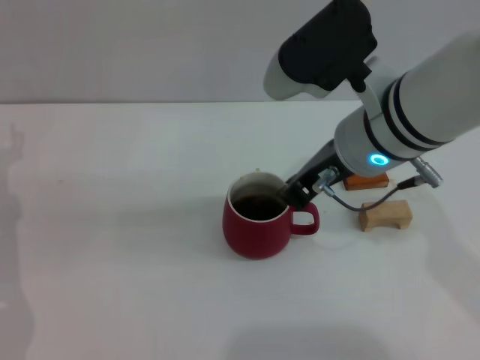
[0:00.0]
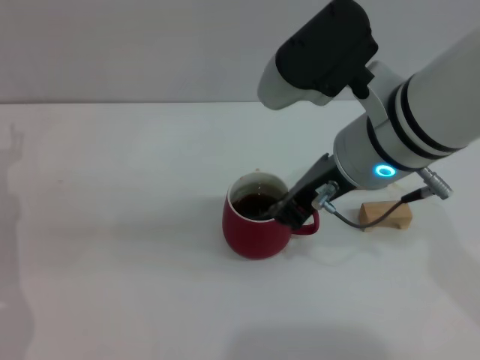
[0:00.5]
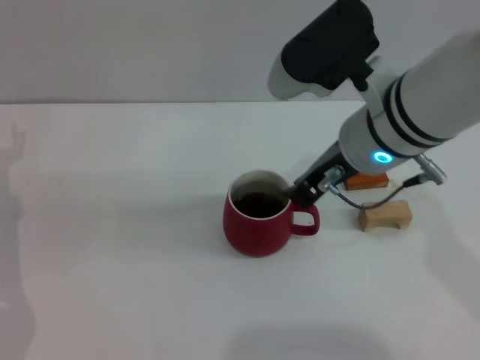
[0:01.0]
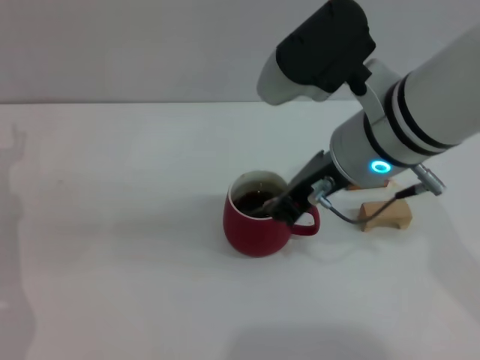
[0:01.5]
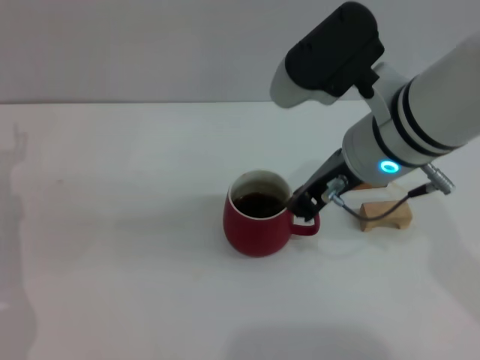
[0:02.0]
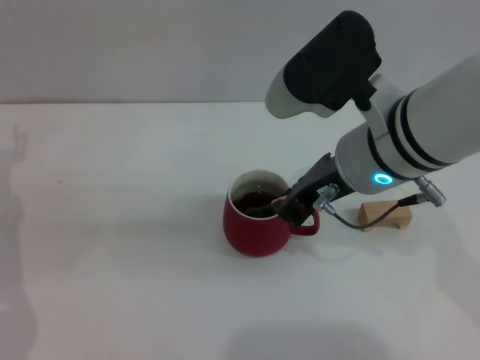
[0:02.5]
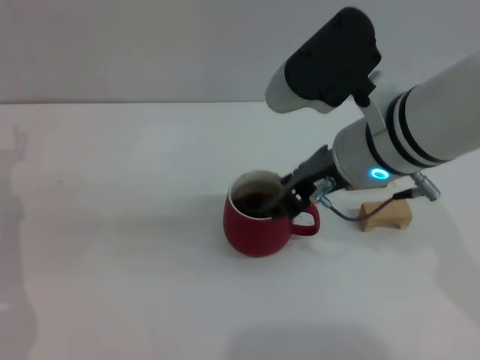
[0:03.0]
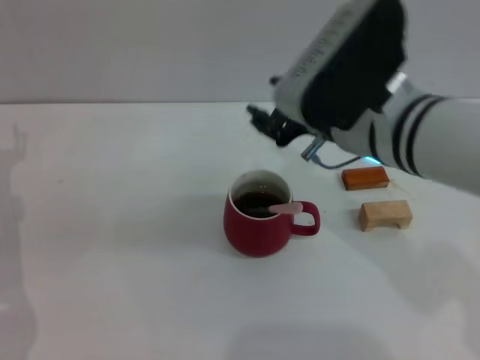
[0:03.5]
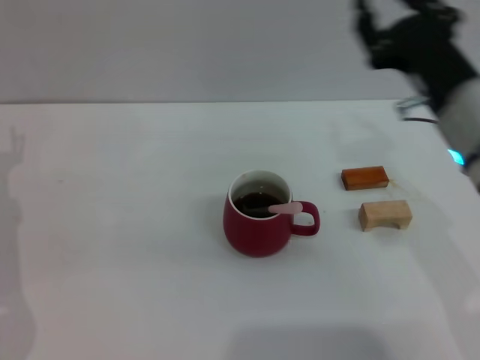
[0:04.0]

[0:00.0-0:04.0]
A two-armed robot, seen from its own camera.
Task of the whole recording: Move the red cup to the center, lift the pink spoon, stir it three times in the cup, and put the spoon into the cup.
Step, 0:00.0 to 0:03.0: Stir the coffee in the cup with the right gripper.
0:00.0 to 0:02.0: The grippers make only small movements.
0:02.0 to 0:04.0: The right gripper shifts some 10 cm to the right and downward, and opens up.

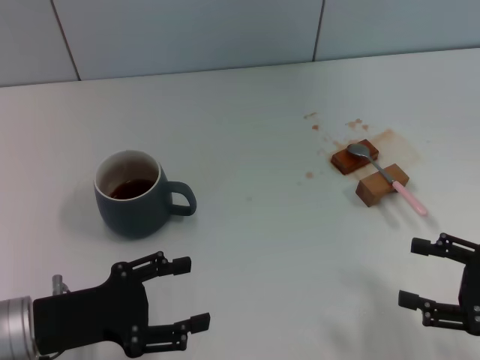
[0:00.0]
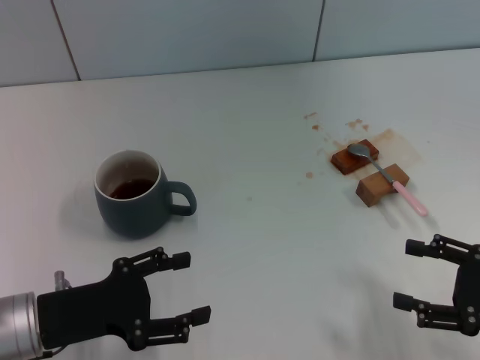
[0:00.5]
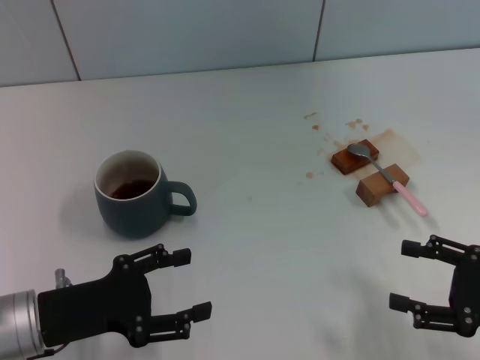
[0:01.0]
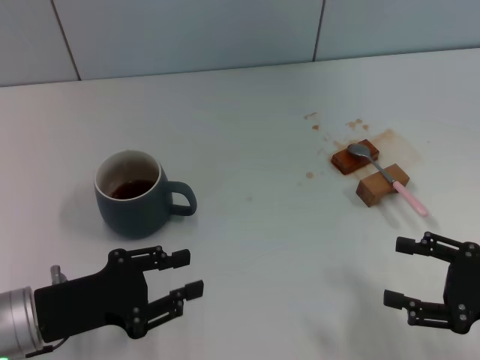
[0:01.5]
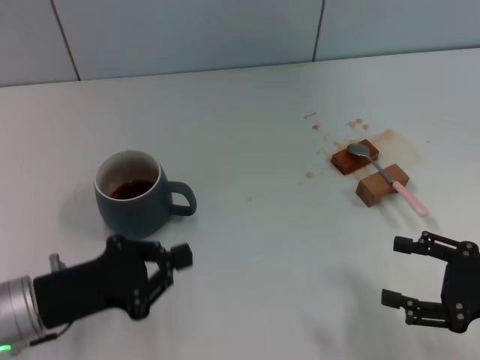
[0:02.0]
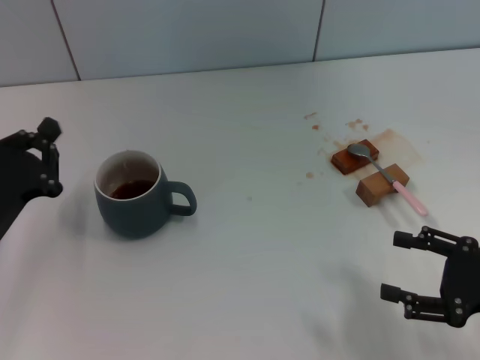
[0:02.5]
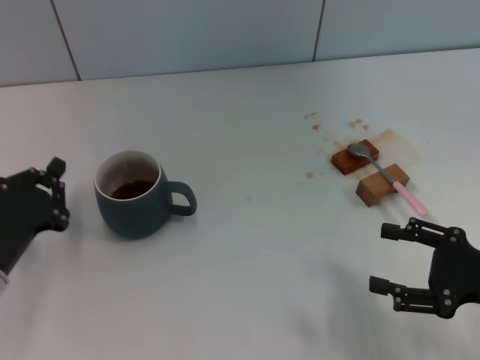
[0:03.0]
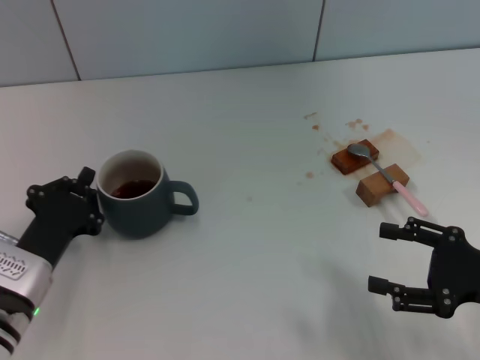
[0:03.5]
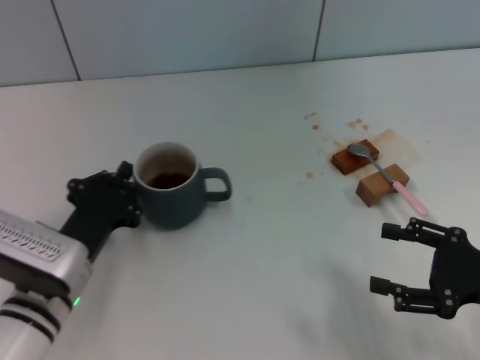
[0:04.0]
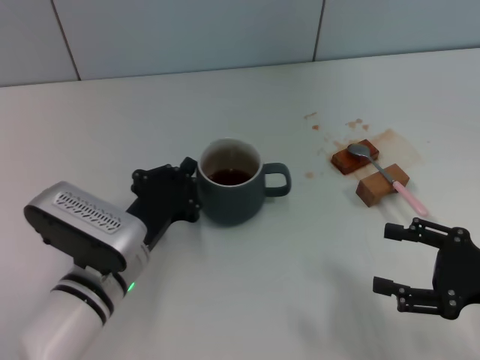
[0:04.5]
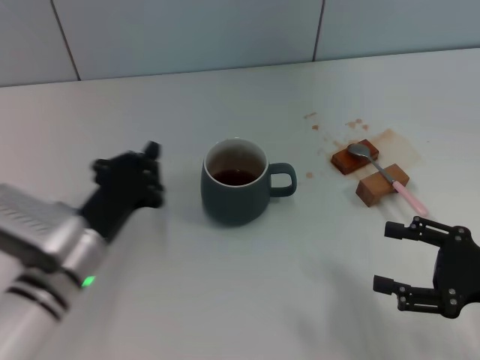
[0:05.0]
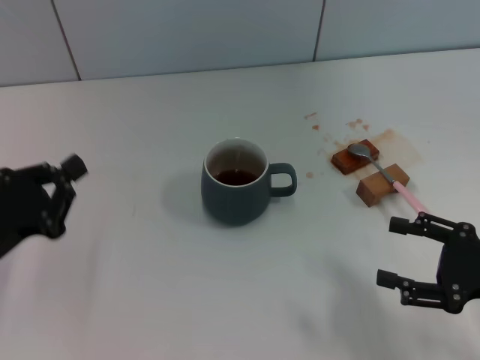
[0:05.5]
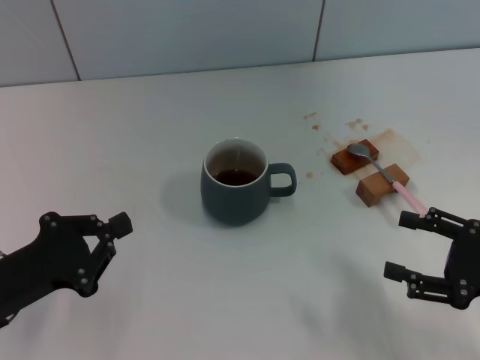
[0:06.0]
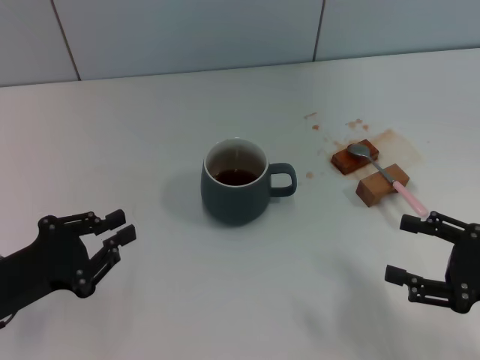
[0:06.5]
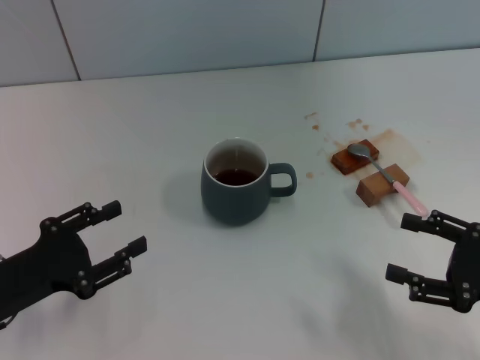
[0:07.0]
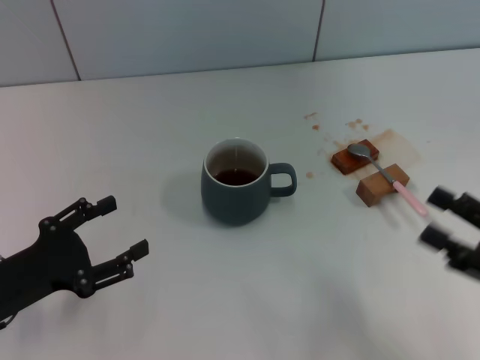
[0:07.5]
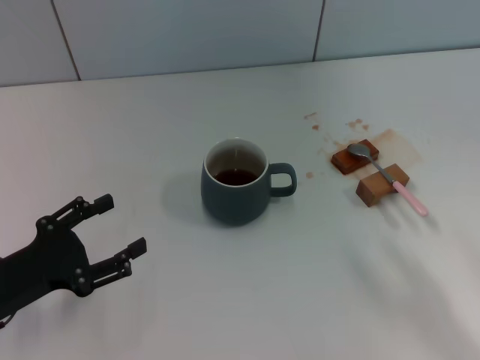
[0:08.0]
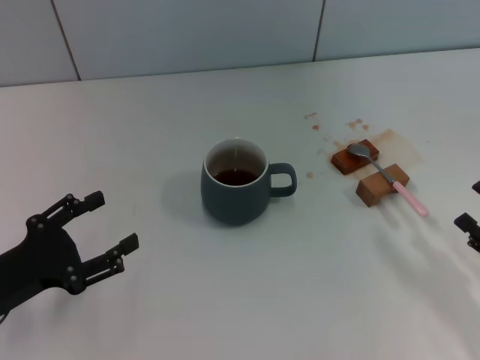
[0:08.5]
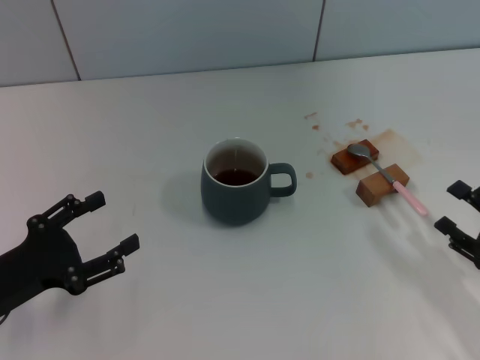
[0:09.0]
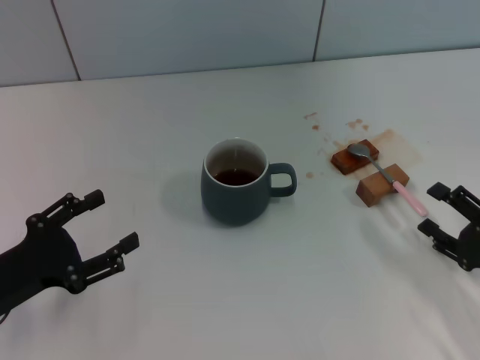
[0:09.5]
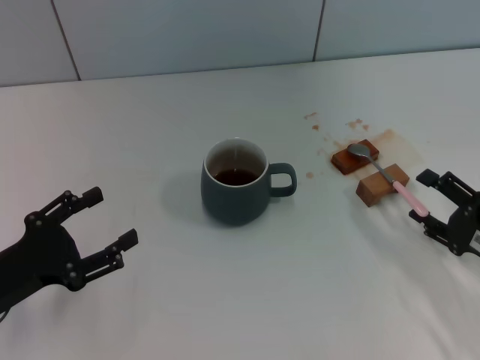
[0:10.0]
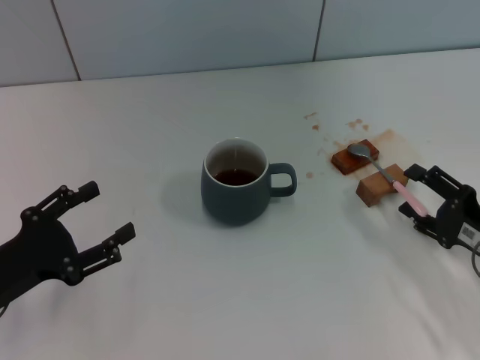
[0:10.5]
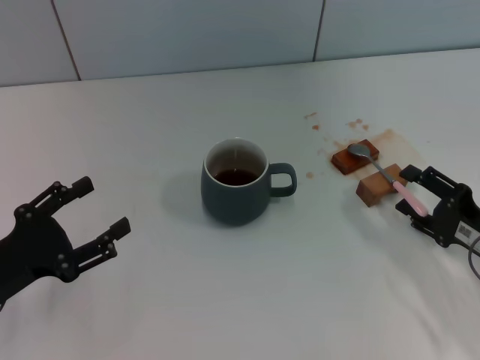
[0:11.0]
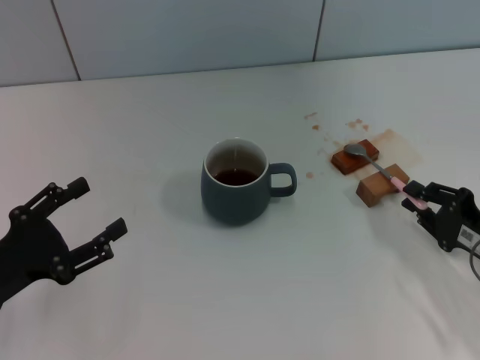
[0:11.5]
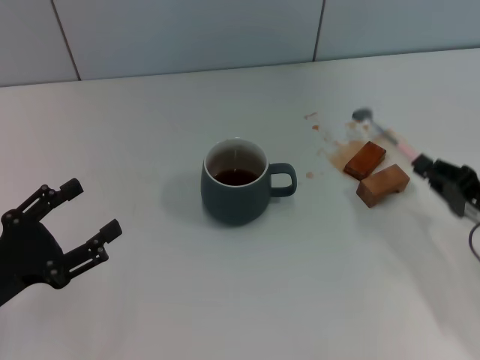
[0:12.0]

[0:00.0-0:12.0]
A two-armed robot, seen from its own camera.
Task of the whole recording: Move the grey cup to the center, lift the pink spoon, stir it three times in the cup, and put the spoon into the cup.
Step, 0:00.0 to 0:04.5: Move the cup with coffee to the center of view with the left gripper.
Step, 0:05.0 to 0:12.0: Pick up the spoon with the right gripper.
0:00.0 to 0:02.0: The left gripper closes its fingers.
0:02.0 to 0:04.0: The left gripper goes approximately 5 cm to the right.
0:04.0 to 0:06.0: The left gripper shifts approximately 10 cm to the left.
0:06.0 to 0:08.0: The right gripper moves backward, roughly 5 cm, while the left gripper opens up.
0:08.0 to 0:10.0: The right gripper travels forward by roughly 10 cm.
0:10.0 to 0:12.0: The right gripper closes up.

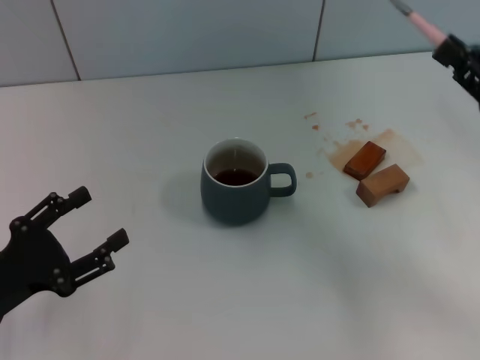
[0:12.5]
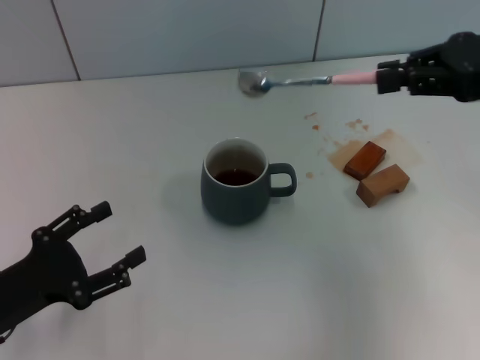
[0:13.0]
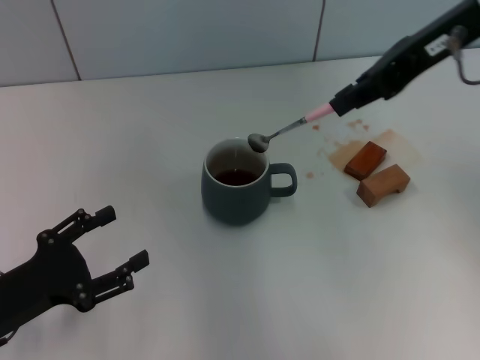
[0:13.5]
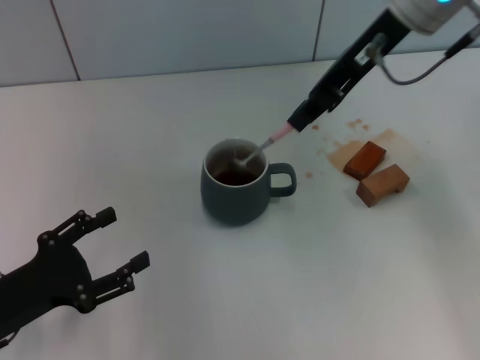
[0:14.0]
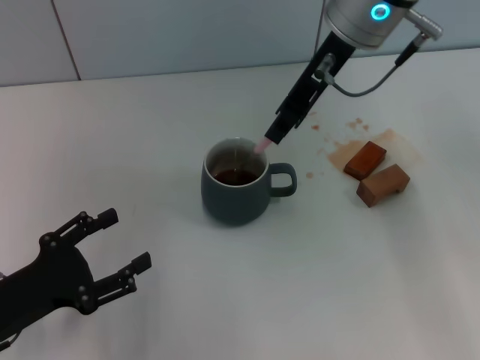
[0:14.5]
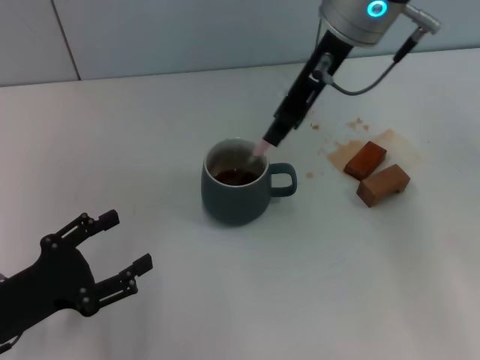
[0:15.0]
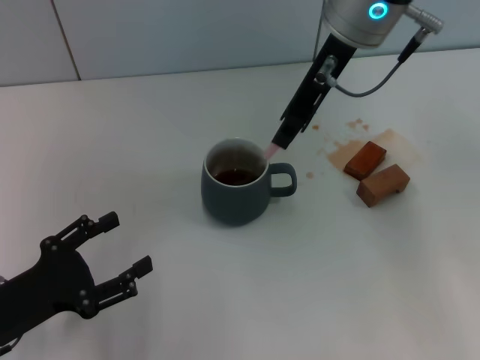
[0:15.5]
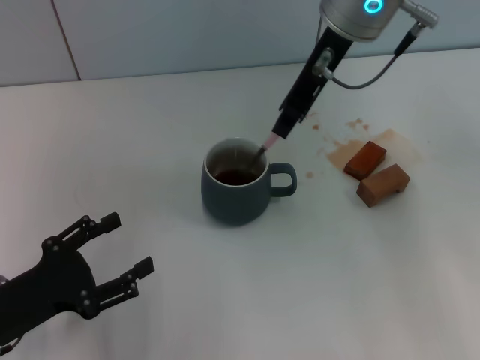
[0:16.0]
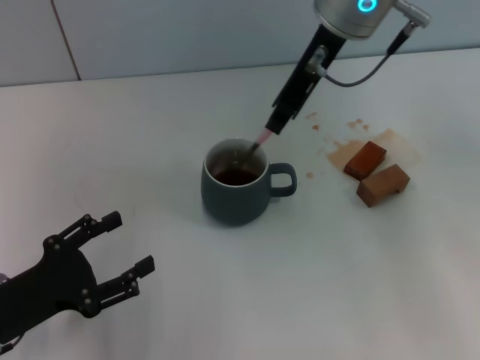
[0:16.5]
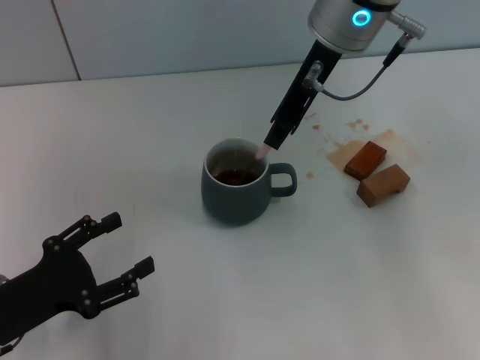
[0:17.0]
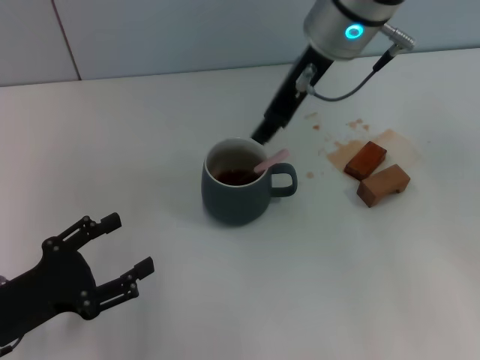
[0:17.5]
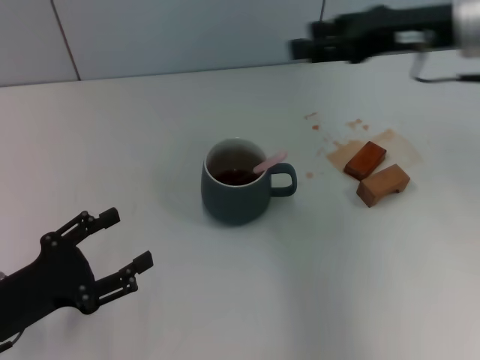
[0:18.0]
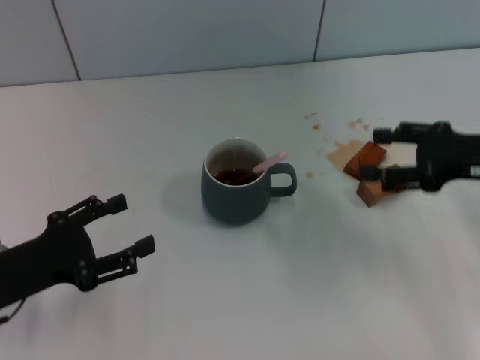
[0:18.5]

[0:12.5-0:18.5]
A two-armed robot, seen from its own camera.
Task of the whole recording: Move the grey cup to the center, lift the pink spoon, stir it three times in the cup, and put the spoon into the cup.
Step, 0:12.5 to 0:17.0: Stir the coffee in the cup with the right gripper.
0:12.5 to 0:14.5: The right gripper is displaced to the left, forward and upward by roughly 30 cm.
0:14.5 to 0:16.5: Both grippers stay put.
0:16.5 to 0:18.5: The right gripper is displaced to the right, downward and backward by some 30 cm, and opens.

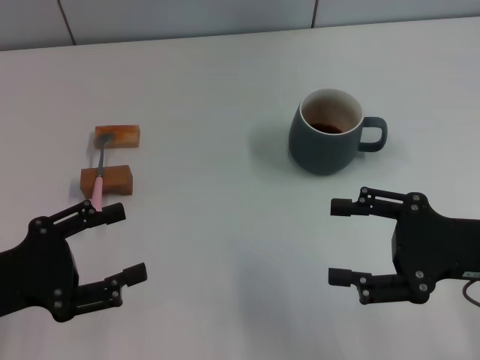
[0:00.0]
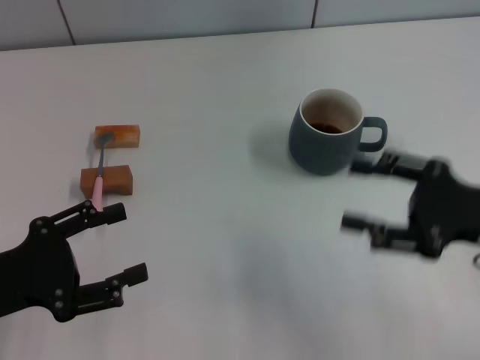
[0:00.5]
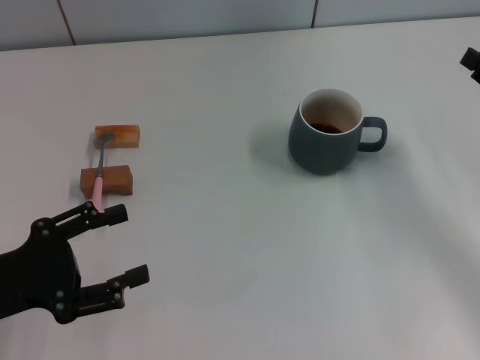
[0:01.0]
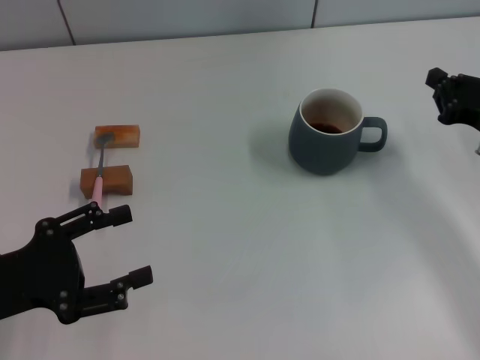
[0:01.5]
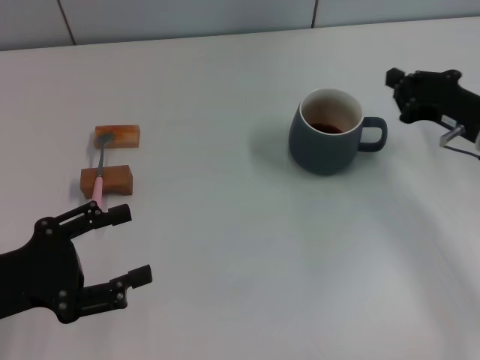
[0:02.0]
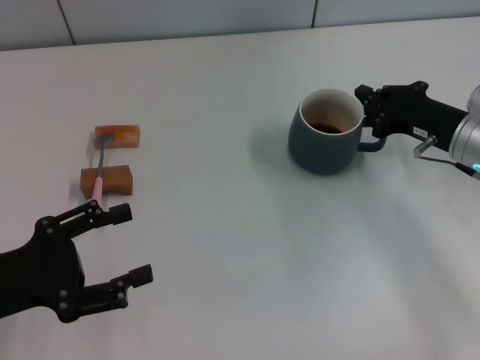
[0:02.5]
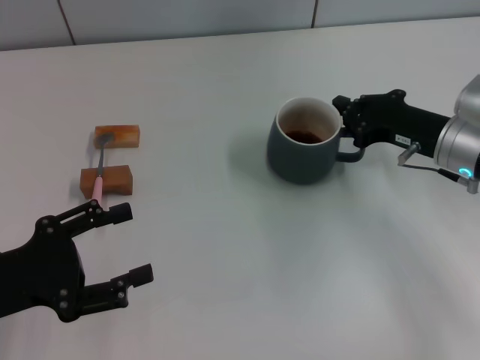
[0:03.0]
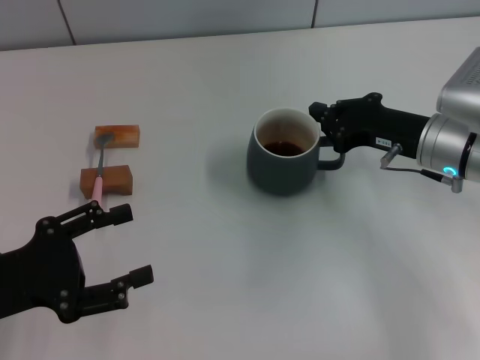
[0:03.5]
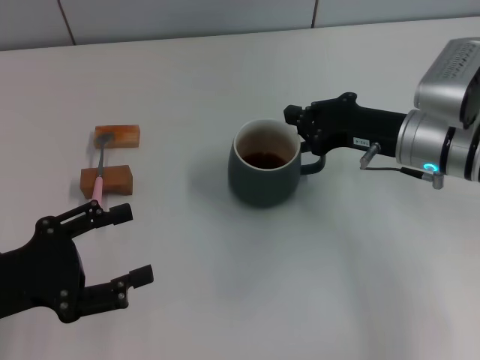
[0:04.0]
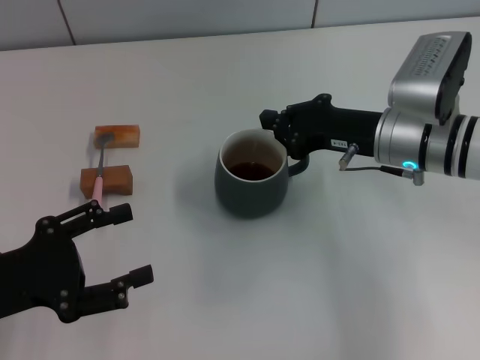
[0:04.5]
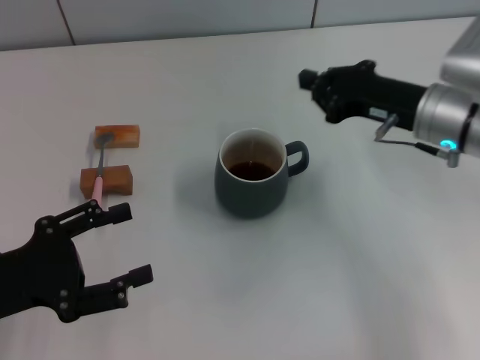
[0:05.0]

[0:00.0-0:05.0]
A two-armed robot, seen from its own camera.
Task of the whole recording: Move the grey cup to the center, lift the pink spoon, stir it three times in the cup, and put the spoon into the cup.
Step, 0:00.0 to 0:05.0: Move the cup with coffee to the center of view with the right gripper.
0:00.0 to 0:02.5: The right gripper heads forward, covering some 10 cm, and closes up.
0:02.5 to 0:05.0: The right gripper shifts by roughly 5 cm.
